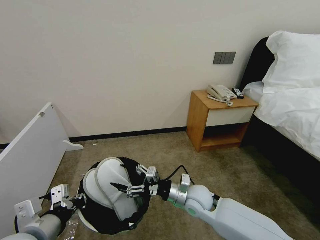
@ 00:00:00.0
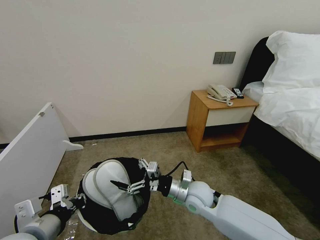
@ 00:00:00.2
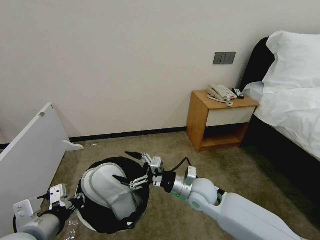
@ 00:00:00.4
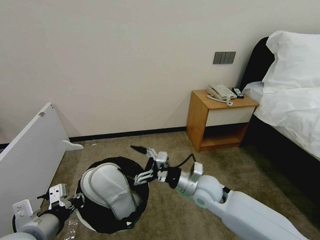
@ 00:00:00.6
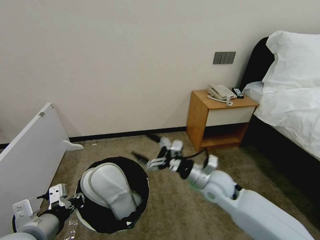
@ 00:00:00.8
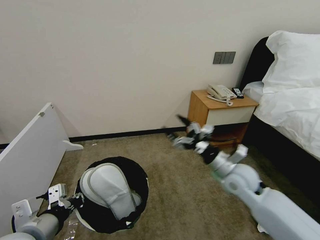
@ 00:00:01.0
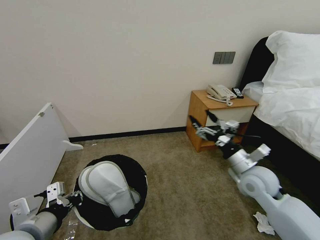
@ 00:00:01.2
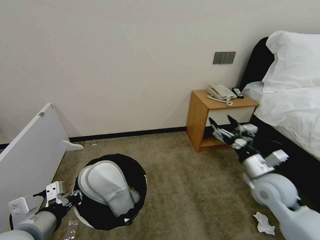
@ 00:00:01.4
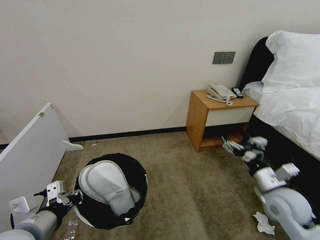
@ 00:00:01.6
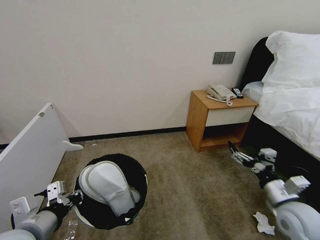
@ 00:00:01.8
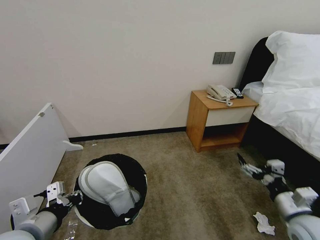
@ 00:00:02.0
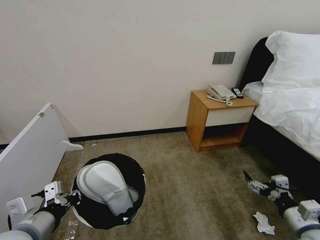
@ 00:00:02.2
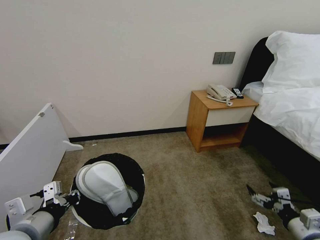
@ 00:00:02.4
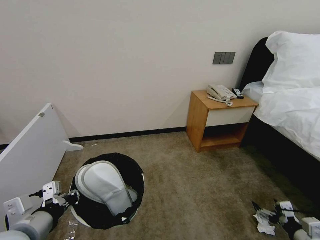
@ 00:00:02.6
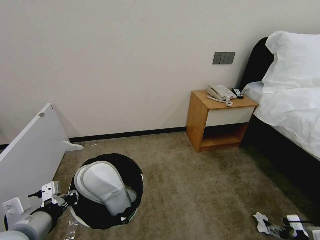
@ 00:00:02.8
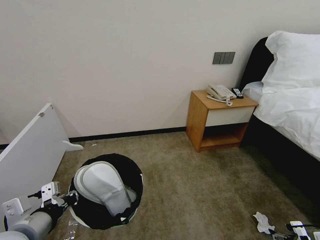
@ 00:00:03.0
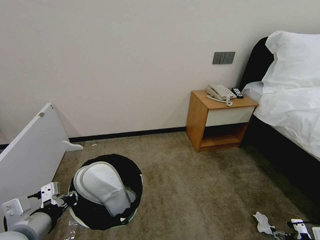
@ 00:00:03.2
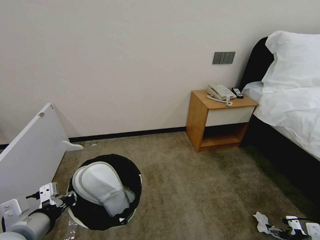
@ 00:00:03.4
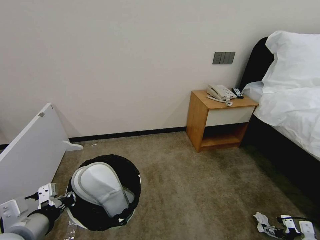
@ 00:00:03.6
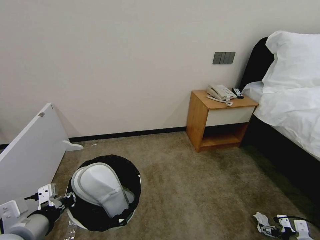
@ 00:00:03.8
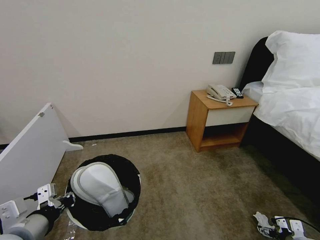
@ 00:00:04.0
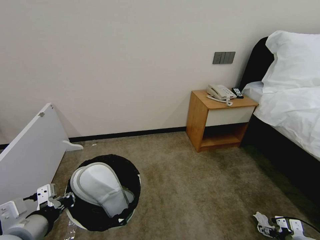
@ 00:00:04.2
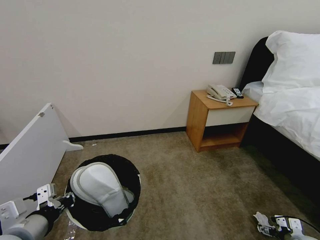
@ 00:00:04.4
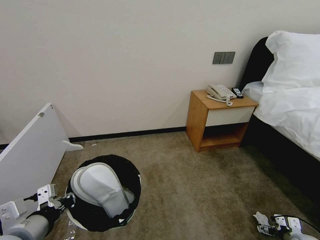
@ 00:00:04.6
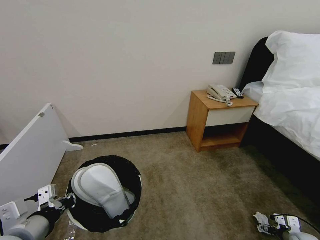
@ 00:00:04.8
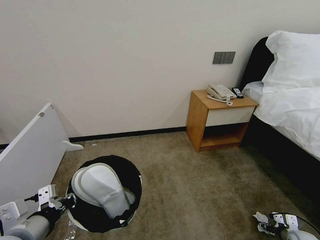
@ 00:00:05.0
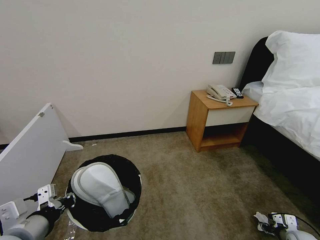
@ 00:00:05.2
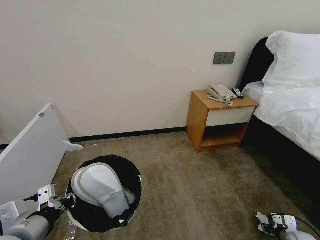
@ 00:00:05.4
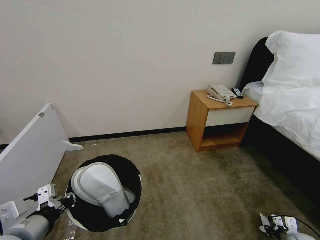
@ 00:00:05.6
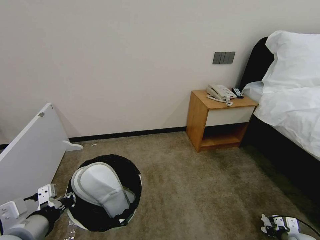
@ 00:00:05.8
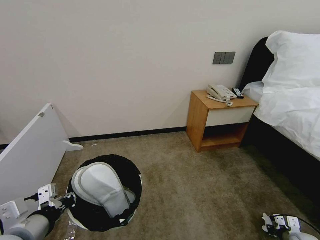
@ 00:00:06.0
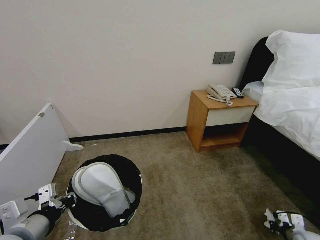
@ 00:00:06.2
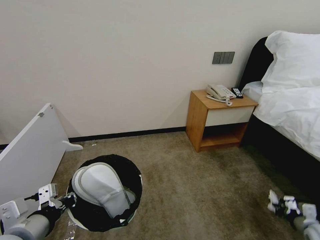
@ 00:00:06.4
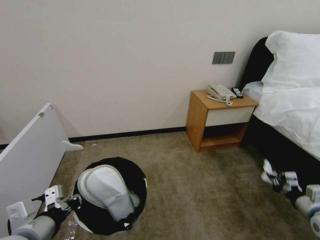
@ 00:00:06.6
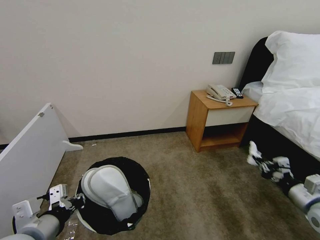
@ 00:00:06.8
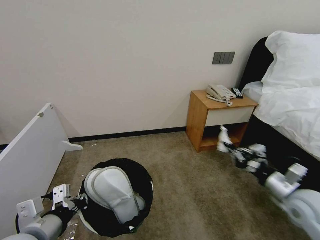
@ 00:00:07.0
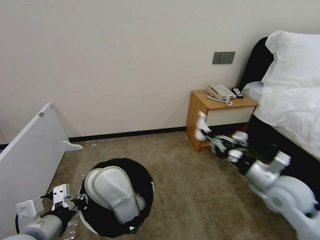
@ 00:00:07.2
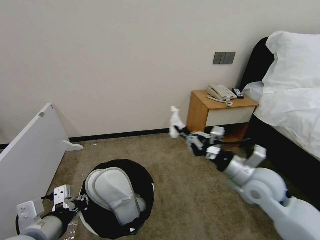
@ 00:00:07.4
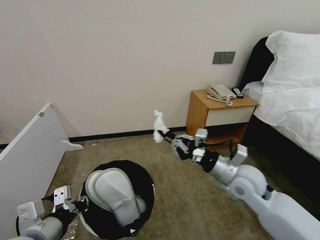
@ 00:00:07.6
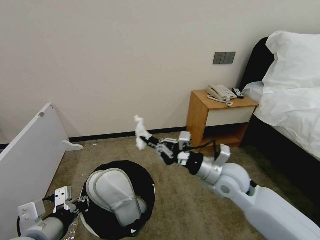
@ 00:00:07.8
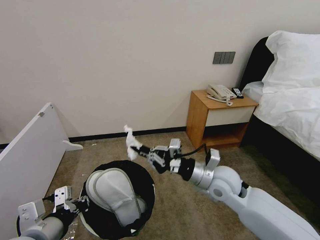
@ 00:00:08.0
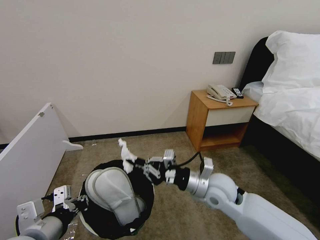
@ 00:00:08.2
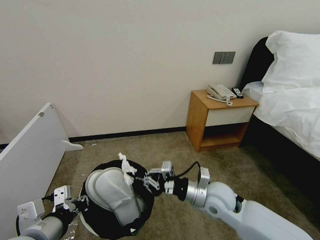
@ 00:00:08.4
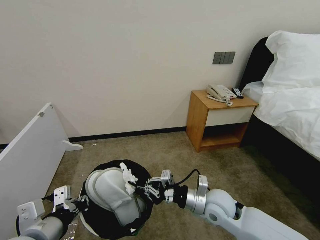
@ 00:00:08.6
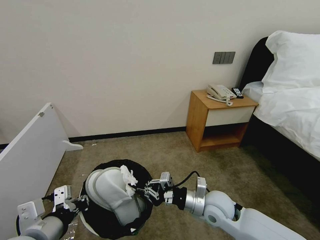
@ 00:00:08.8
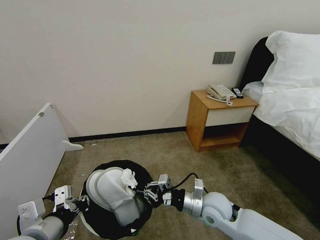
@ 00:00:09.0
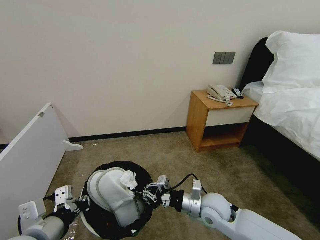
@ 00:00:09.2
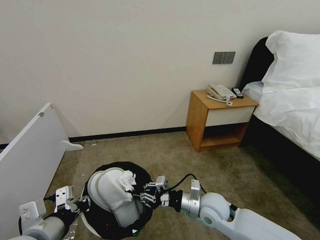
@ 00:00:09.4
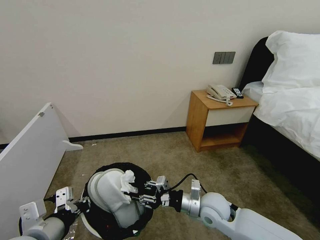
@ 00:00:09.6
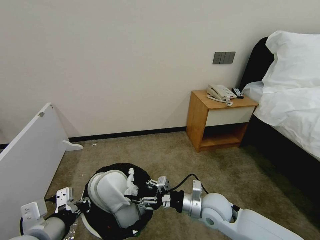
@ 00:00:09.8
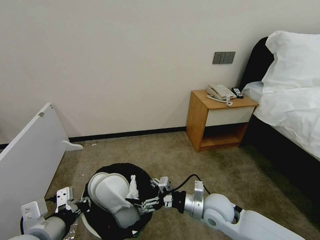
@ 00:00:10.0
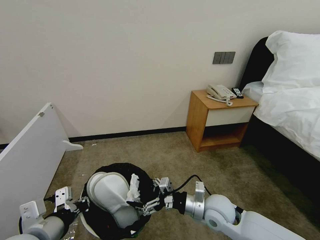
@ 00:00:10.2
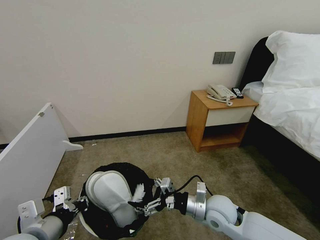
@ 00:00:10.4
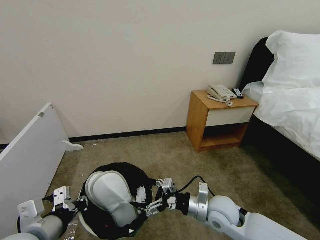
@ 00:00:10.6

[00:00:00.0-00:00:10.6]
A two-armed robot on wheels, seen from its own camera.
Task of the whole recording: Pick up the trash bin, then pick up the garbage from the floor and place it into the trash bin.
00:00:00.0 to 00:00:01.6: The right gripper is displaced to the right by roughly 25 cm.
00:00:01.6 to 00:00:03.0: The right gripper is displaced to the right, downward and backward by about 25 cm.
00:00:03.0 to 00:00:04.6: The right gripper shifts some 15 cm downward and forward.
00:00:04.6 to 00:00:06.0: The right gripper closes up.
00:00:06.0 to 00:00:07.6: The right gripper goes roughly 40 cm to the left and upward.
00:00:07.6 to 00:00:09.0: The right gripper is displaced downward and to the left by approximately 15 cm.
00:00:09.0 to 00:00:10.6: The right gripper opens up.

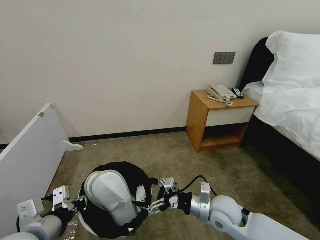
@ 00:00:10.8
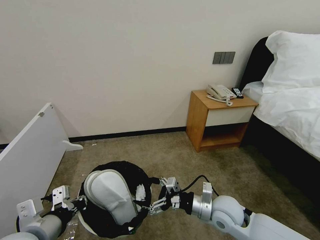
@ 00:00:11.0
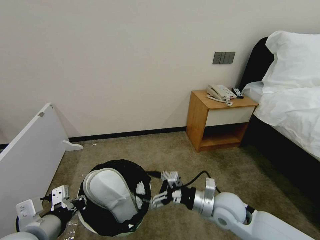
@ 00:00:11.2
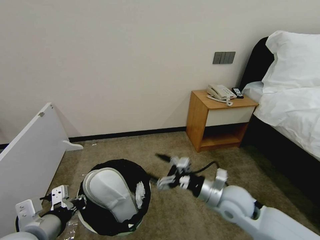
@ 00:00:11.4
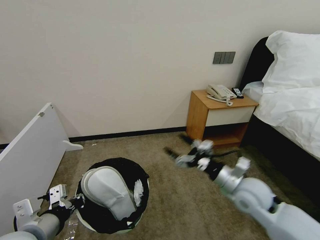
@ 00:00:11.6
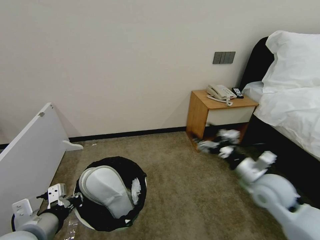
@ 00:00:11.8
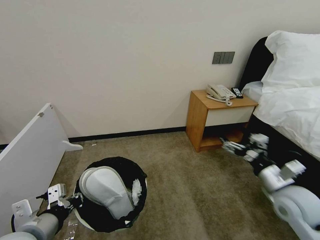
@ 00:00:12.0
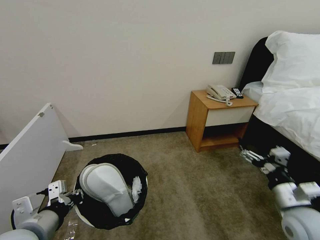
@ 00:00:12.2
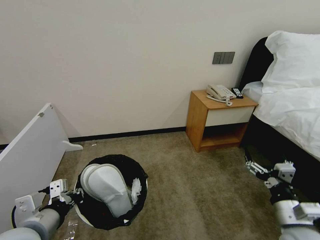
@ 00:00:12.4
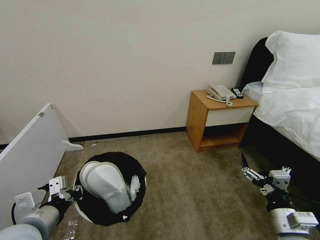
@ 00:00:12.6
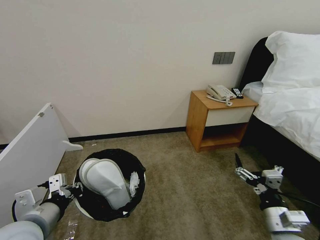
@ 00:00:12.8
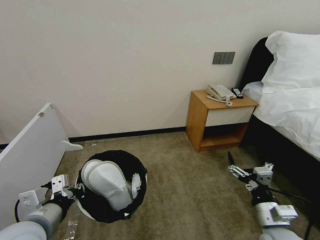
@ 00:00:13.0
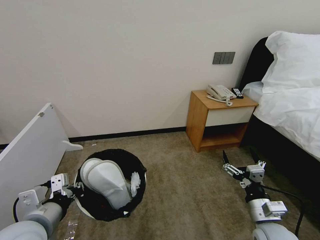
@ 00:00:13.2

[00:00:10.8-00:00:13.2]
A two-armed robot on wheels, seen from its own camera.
Task of the whole recording: Pick up the trash bin, then pick up the garbage from the floor and place it into the trash bin.
00:00:10.8 to 00:00:12.0: The right gripper shifts approximately 20 cm to the right and upward.
00:00:12.0 to 00:00:13.2: The right gripper goes some 10 cm downward, to the left and backward.
